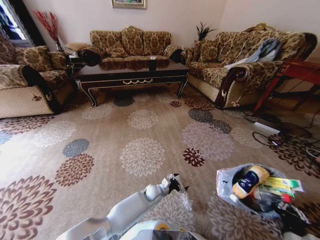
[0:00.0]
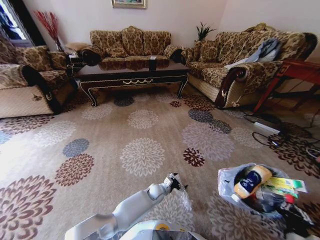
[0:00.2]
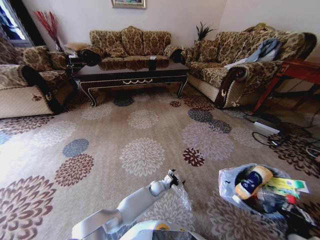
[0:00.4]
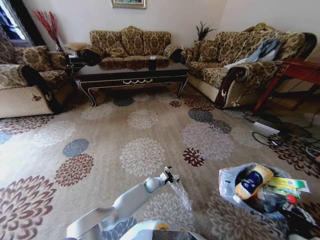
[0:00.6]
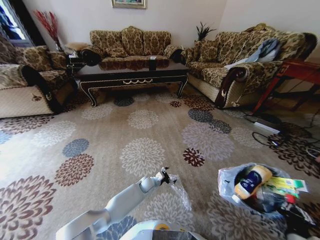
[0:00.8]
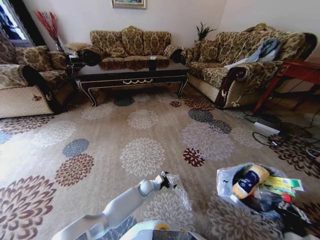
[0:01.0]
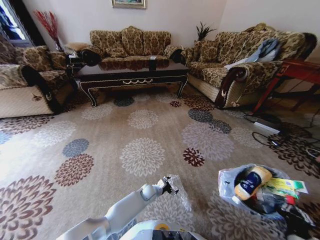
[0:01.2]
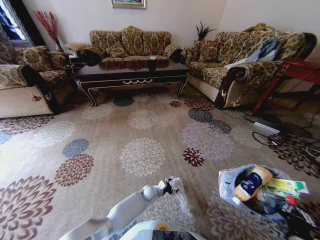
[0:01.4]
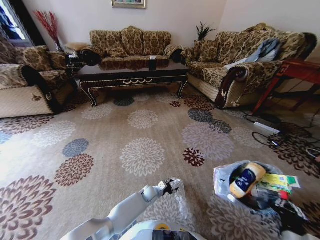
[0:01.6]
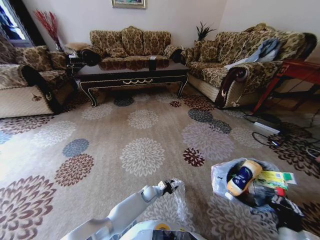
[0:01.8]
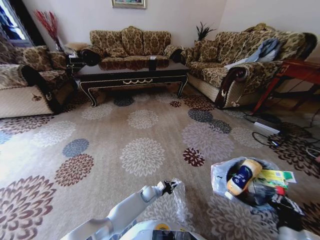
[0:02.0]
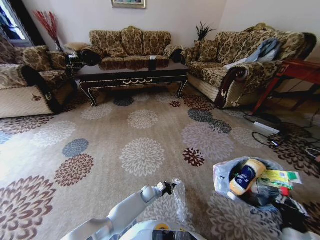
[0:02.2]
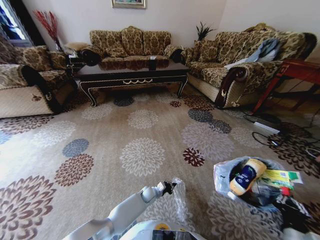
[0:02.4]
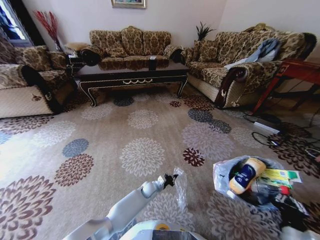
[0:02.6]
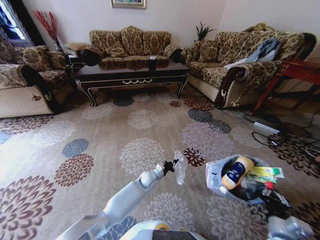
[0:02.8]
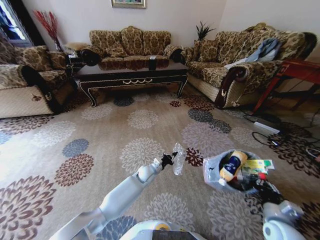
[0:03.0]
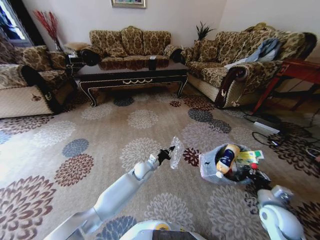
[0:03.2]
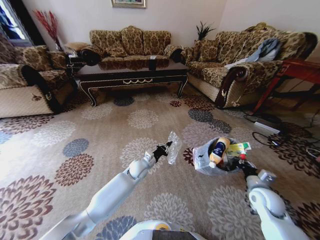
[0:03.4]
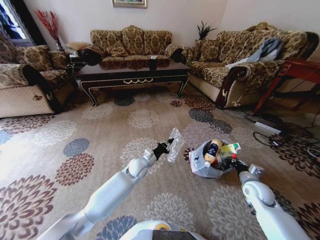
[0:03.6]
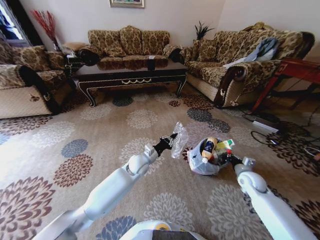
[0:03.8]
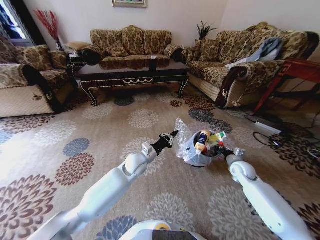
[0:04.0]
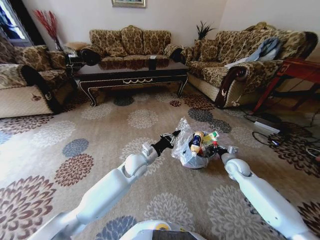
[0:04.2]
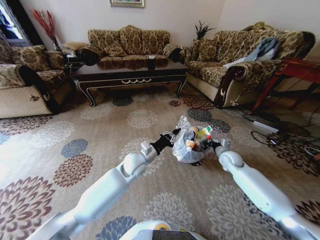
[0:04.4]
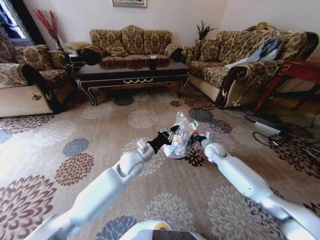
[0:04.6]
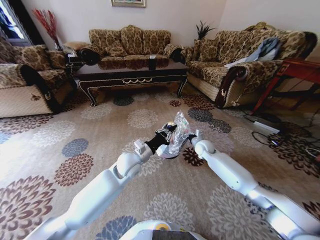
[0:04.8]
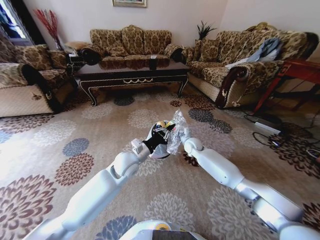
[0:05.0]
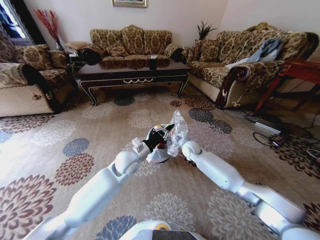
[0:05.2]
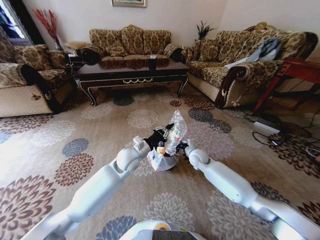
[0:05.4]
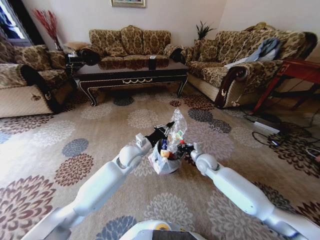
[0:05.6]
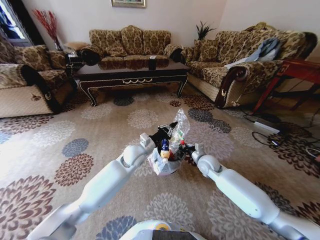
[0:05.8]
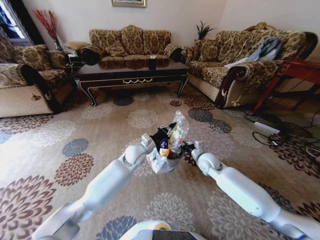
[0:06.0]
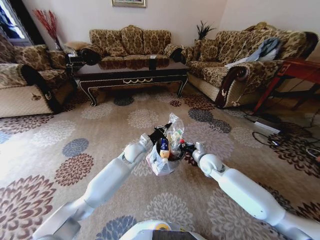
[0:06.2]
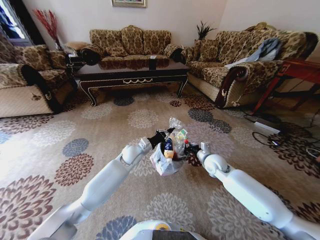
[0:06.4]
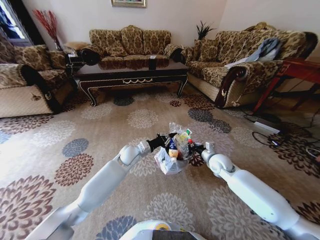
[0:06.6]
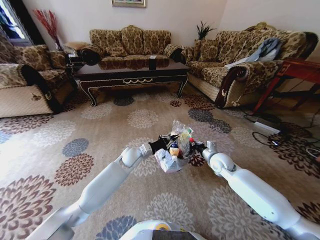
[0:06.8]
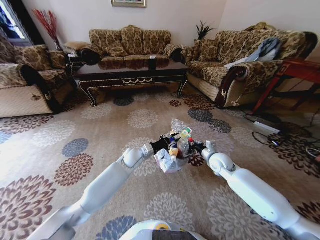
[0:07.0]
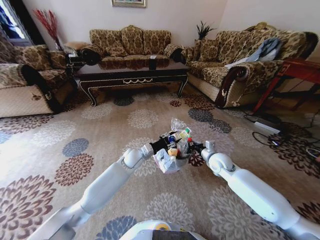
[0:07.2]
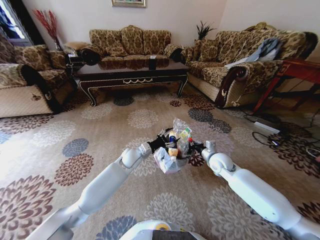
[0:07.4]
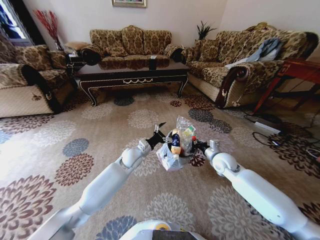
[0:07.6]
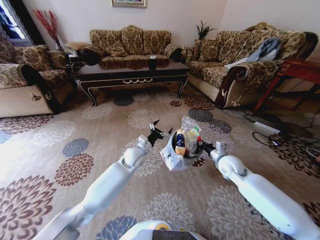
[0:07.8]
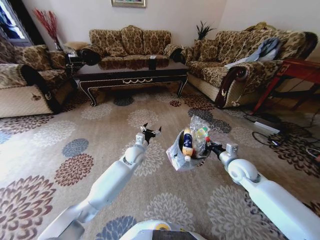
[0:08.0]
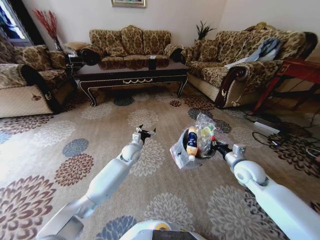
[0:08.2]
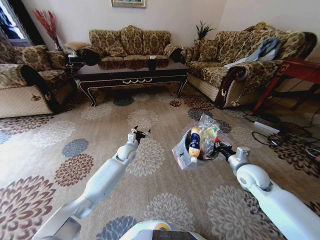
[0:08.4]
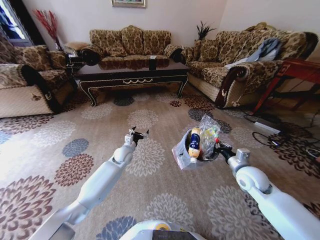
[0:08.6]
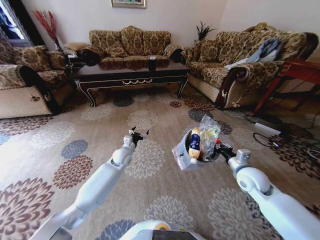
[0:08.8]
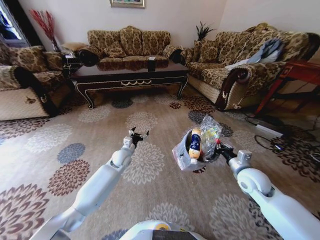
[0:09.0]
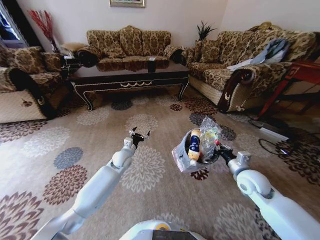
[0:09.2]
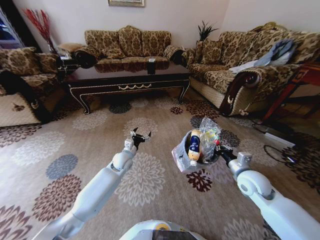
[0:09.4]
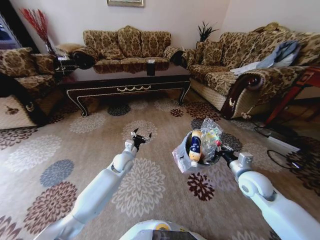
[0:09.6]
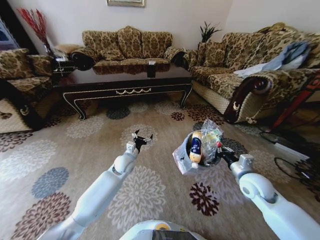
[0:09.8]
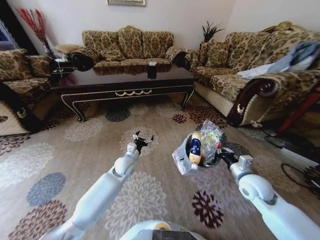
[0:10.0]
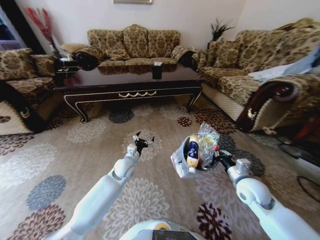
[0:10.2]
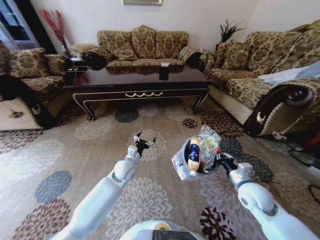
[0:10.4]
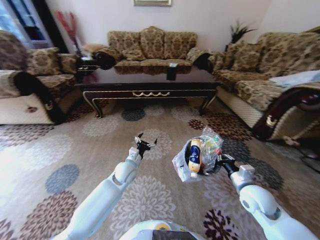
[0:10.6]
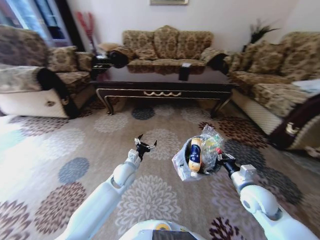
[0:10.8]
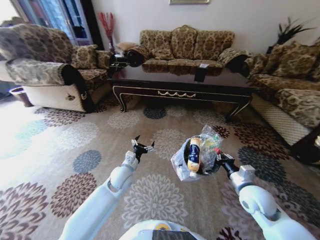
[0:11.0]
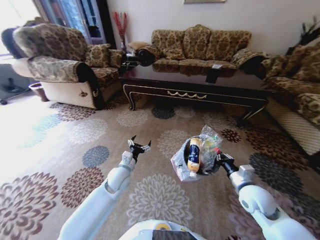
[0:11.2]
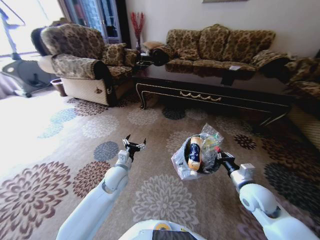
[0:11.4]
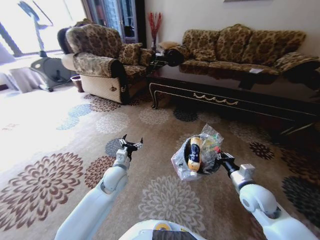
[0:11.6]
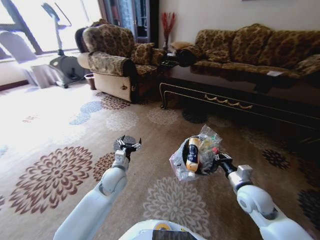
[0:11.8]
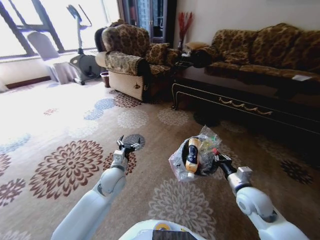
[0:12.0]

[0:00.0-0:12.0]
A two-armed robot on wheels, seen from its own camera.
Task of the whole recording: Pick up the trash from the ground and place it into the trash bin.
0:00.0 to 0:01.6: The left gripper shifts by some 5 cm.
0:01.6 to 0:03.0: The left gripper travels upward and forward by approximately 15 cm, and closes up. Meanwhile the right gripper shifts some 5 cm forward.
0:03.0 to 0:04.4: The left gripper is displaced upward by roughly 15 cm. Meanwhile the right gripper heads forward, covering roughly 30 cm.
0:04.4 to 0:06.0: The right gripper goes roughly 15 cm to the left.
0:06.0 to 0:07.6: The right gripper heads to the right, covering approximately 5 cm; the left gripper opens its fingers.
0:07.6 to 0:09.0: The left gripper moves to the left, roughly 5 cm, while the right gripper moves backward and to the right, approximately 10 cm.
0:09.0 to 0:10.4: The left gripper heads backward, covering roughly 5 cm. Meanwhile the right gripper moves about 5 cm.
0:10.4 to 0:12.0: The left gripper is displaced backward by some 5 cm.

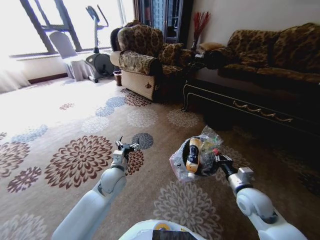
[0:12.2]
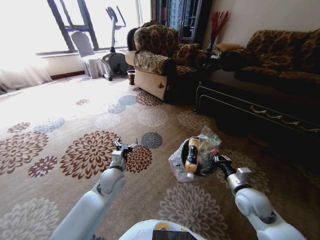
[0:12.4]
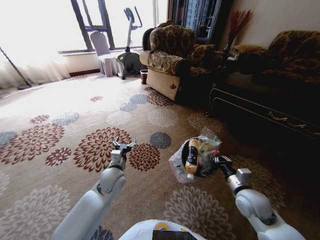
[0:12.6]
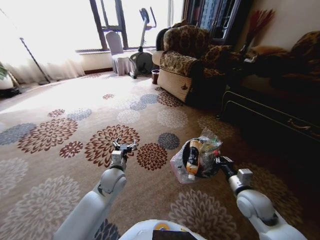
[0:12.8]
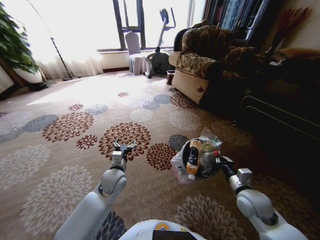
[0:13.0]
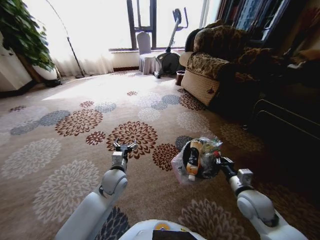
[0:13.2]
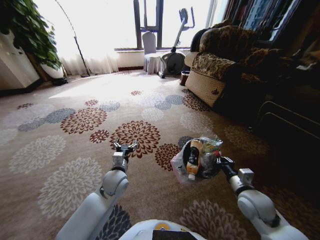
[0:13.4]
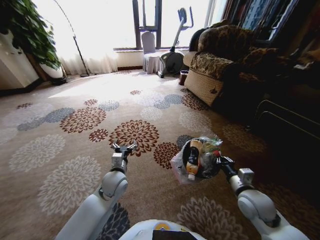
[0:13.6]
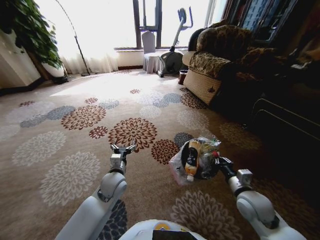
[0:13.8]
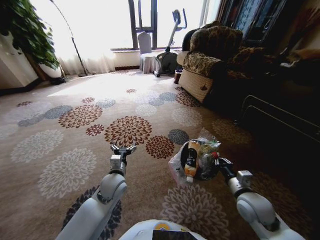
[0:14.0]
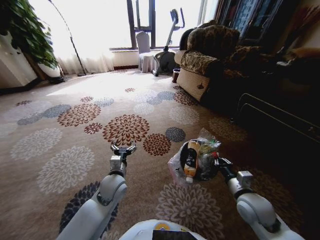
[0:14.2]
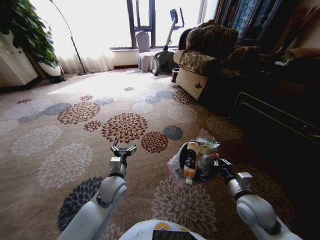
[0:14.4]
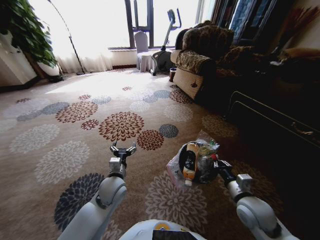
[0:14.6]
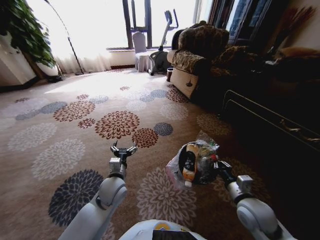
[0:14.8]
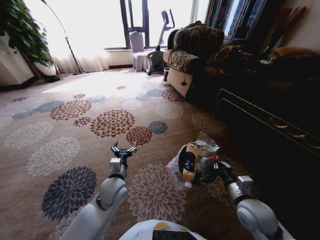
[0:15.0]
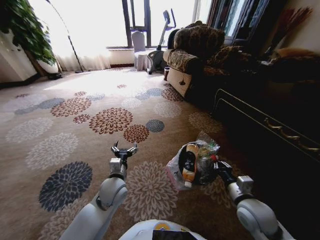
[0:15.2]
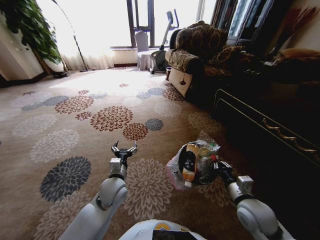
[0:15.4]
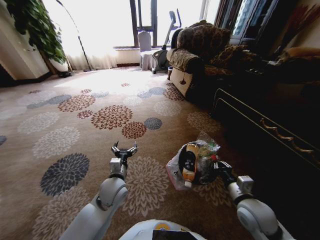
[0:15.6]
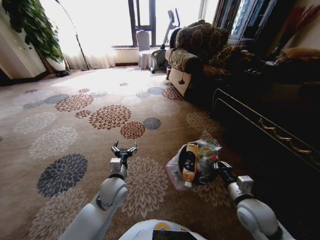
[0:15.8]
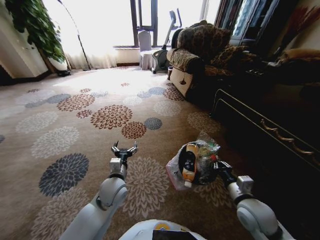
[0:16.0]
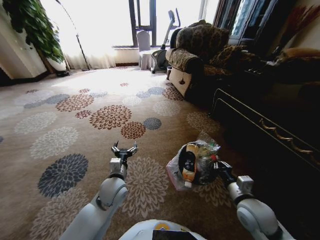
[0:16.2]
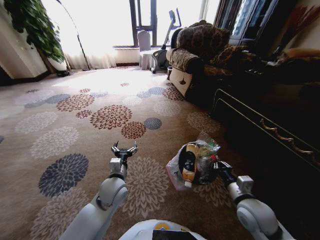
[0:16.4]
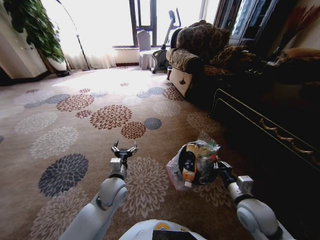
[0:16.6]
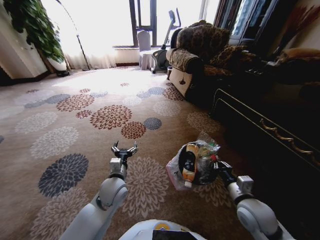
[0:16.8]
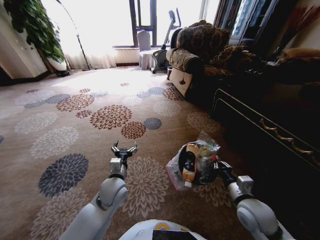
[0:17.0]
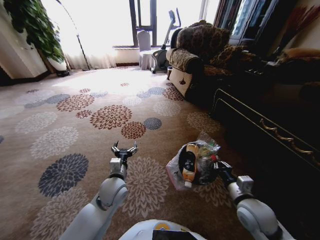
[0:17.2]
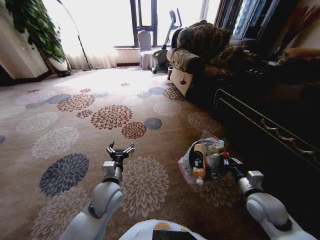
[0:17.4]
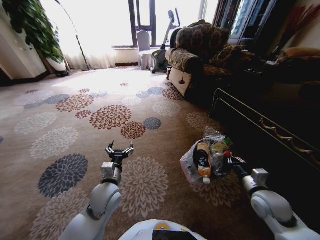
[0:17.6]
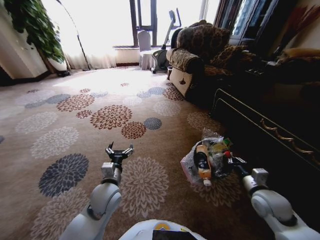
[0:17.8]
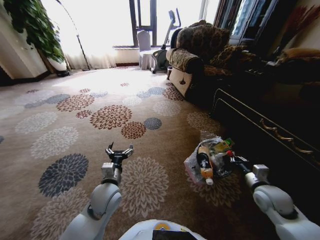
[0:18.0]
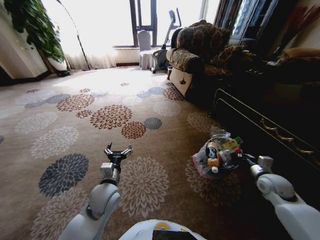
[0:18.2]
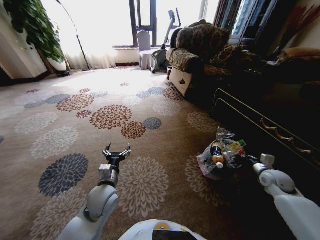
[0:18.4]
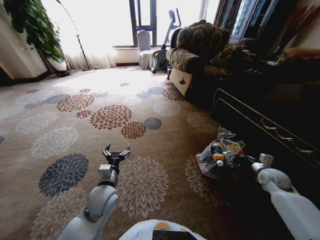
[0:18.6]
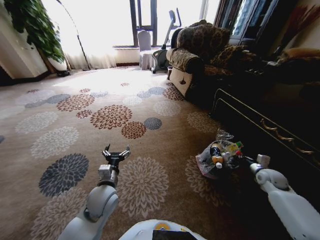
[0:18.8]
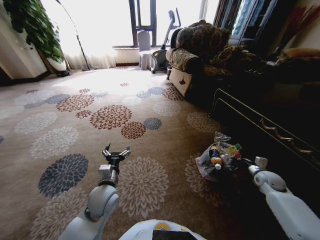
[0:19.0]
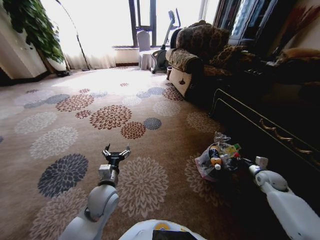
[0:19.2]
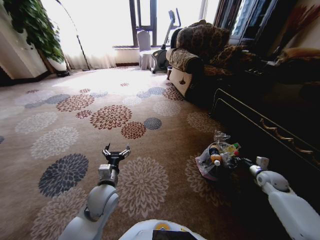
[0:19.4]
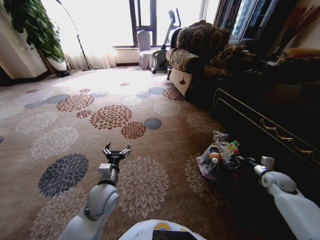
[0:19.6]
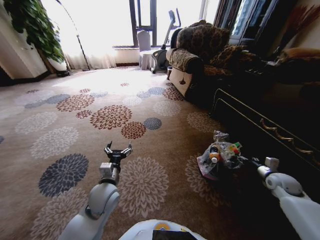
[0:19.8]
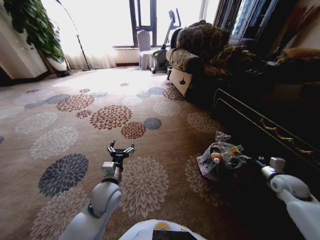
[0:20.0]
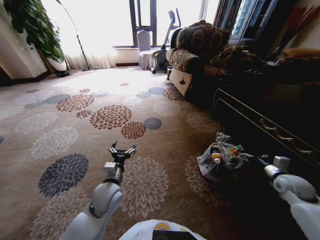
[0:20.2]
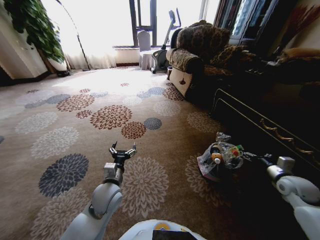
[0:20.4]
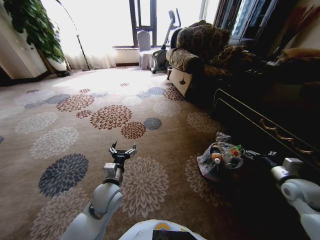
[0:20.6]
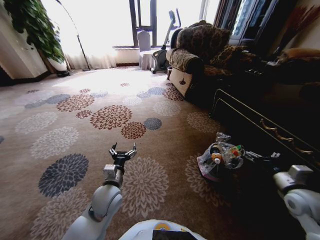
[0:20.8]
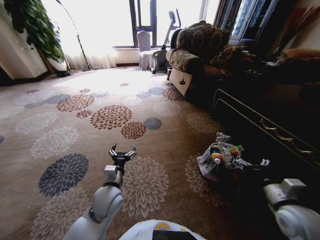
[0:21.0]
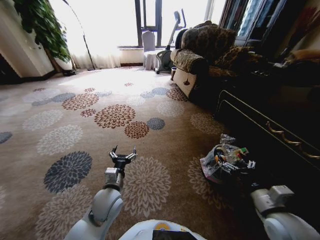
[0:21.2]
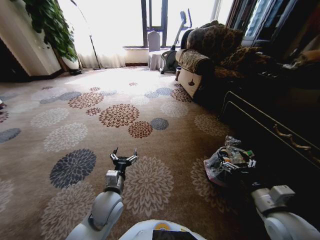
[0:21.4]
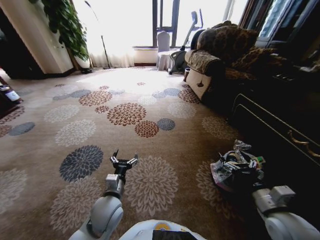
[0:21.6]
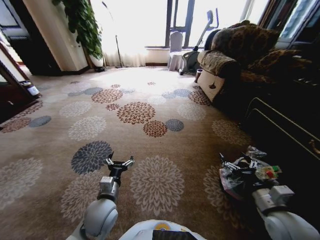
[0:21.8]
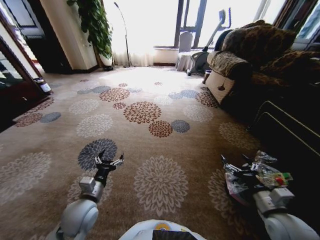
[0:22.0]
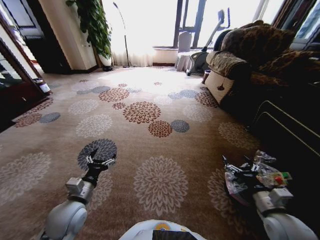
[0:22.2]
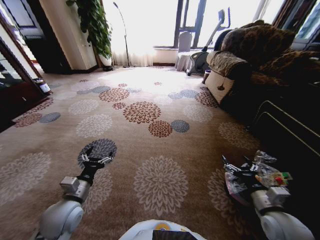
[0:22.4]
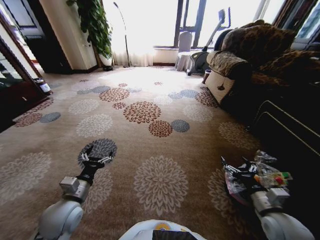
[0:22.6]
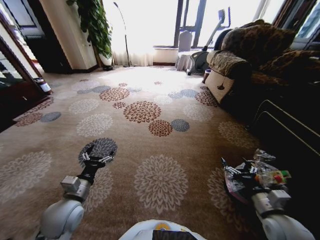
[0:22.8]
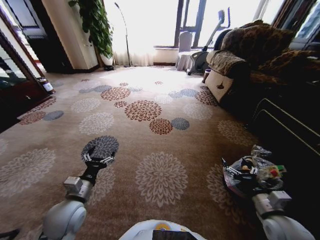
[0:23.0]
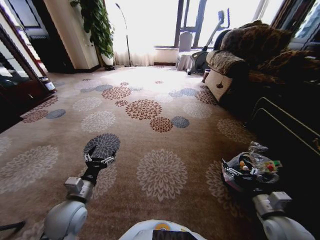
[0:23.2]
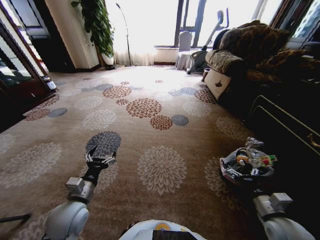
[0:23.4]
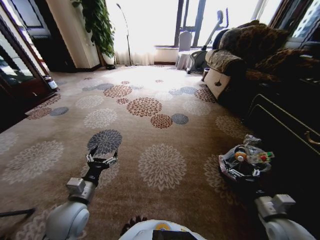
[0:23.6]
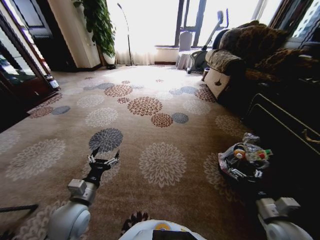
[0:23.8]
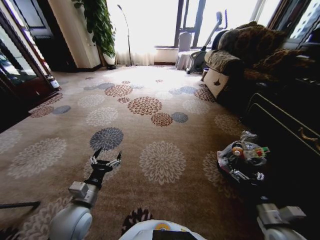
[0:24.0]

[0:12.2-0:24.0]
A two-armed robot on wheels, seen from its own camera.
Task of the whole recording: Pick up the trash from the ground and place it into the trash bin.
0:15.2 to 0:16.6: The two grippers keep their place.
0:16.6 to 0:18.2: The right gripper shifts some 15 cm to the right and forward.
0:18.2 to 0:19.6: The right gripper travels to the right and downward by some 10 cm, and opens up.
0:19.6 to 0:21.0: The right gripper goes approximately 25 cm backward, to the left and upward, and opens up.
0:21.0 to 0:22.6: The left gripper moves to the left and backward, some 15 cm.
